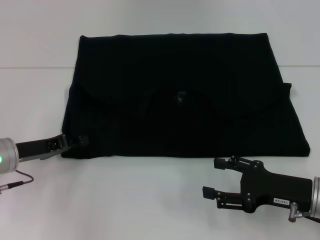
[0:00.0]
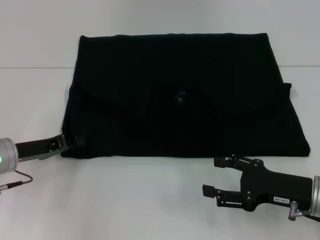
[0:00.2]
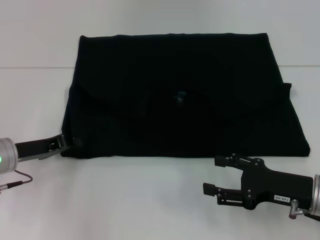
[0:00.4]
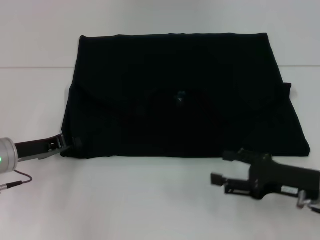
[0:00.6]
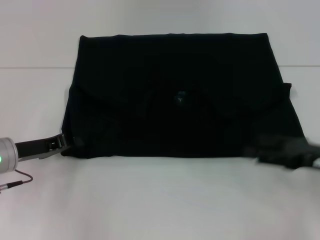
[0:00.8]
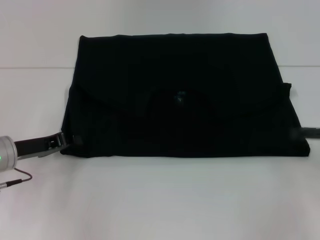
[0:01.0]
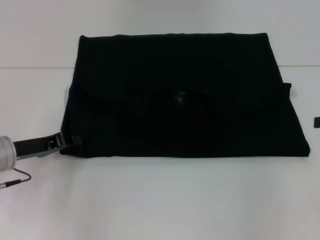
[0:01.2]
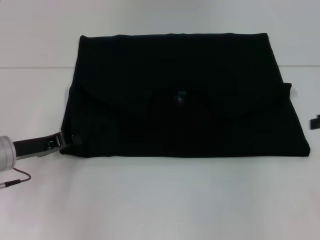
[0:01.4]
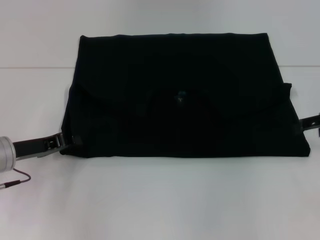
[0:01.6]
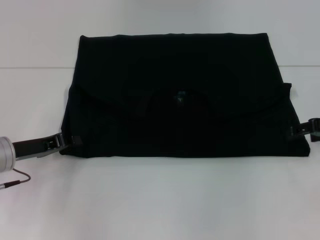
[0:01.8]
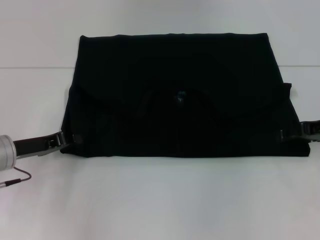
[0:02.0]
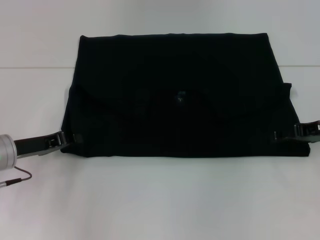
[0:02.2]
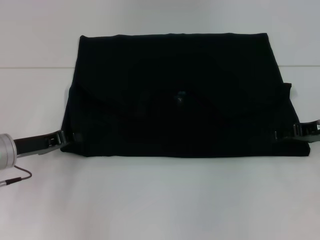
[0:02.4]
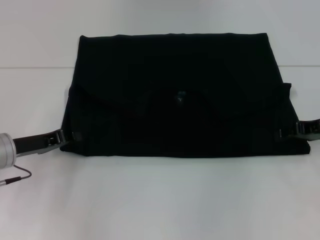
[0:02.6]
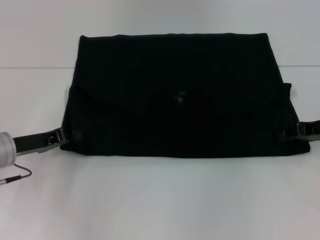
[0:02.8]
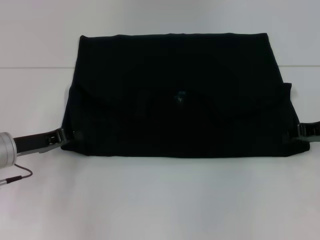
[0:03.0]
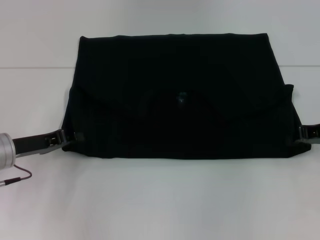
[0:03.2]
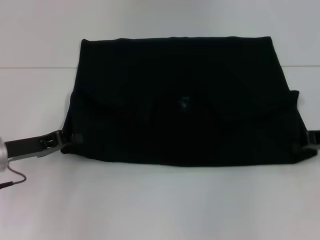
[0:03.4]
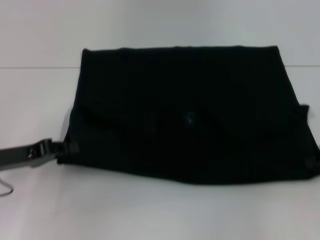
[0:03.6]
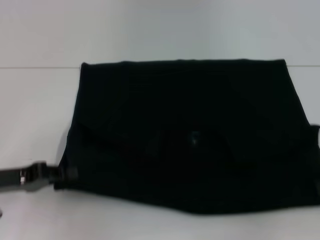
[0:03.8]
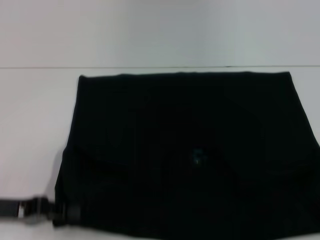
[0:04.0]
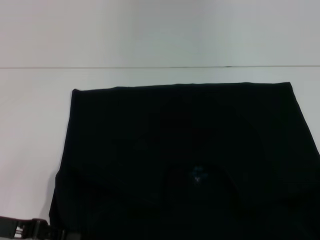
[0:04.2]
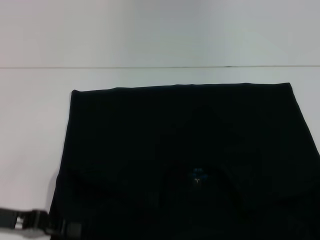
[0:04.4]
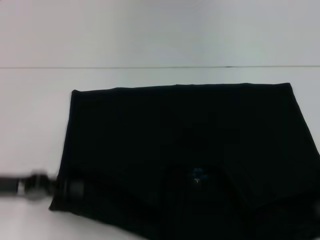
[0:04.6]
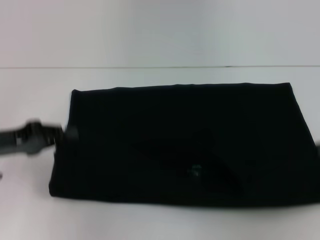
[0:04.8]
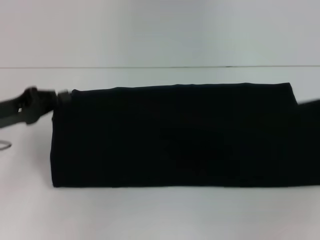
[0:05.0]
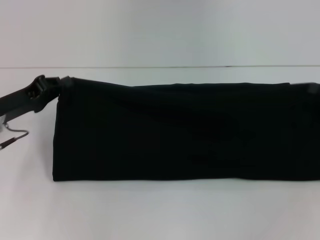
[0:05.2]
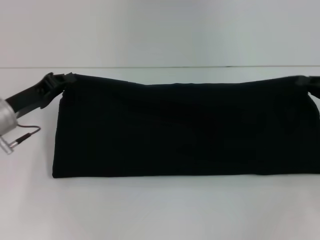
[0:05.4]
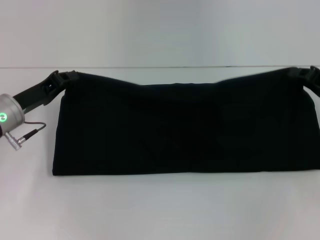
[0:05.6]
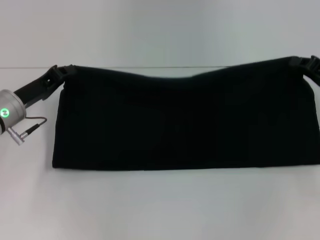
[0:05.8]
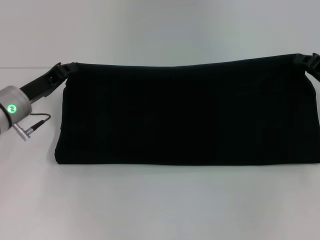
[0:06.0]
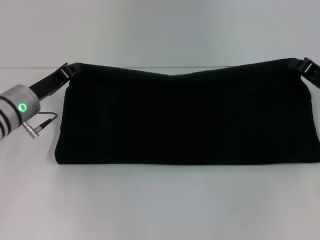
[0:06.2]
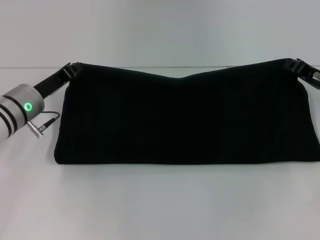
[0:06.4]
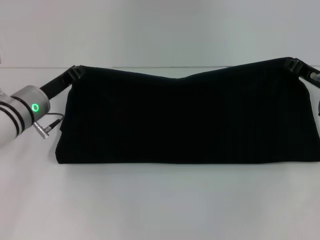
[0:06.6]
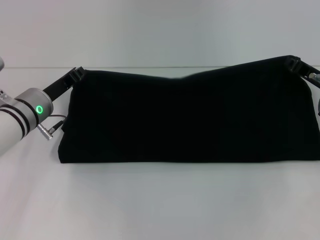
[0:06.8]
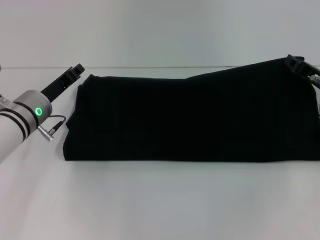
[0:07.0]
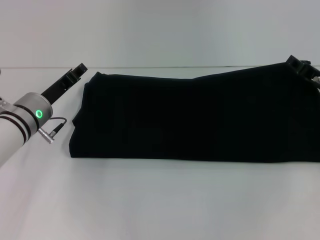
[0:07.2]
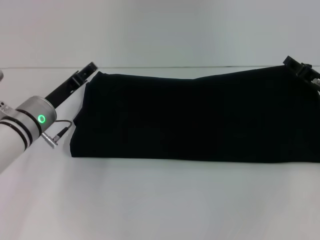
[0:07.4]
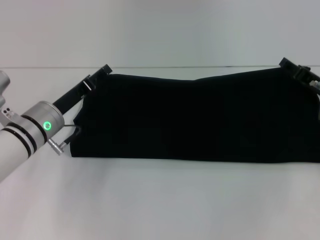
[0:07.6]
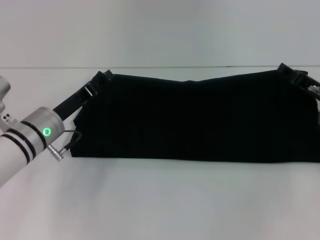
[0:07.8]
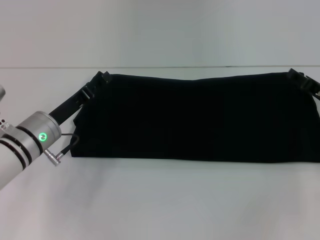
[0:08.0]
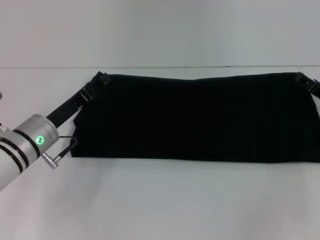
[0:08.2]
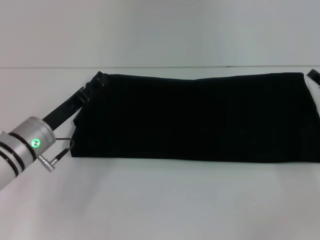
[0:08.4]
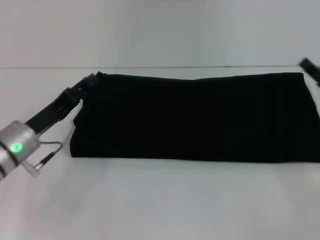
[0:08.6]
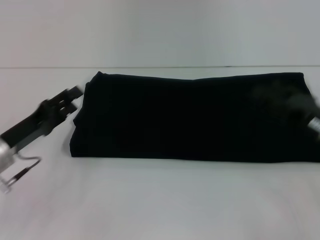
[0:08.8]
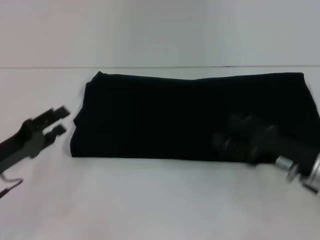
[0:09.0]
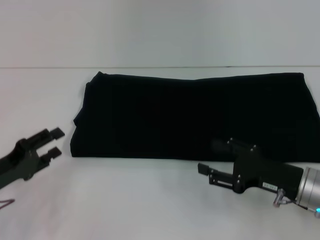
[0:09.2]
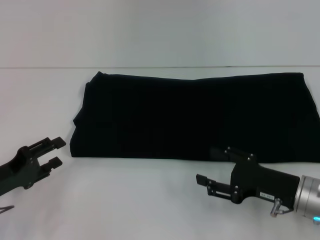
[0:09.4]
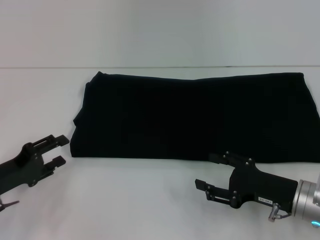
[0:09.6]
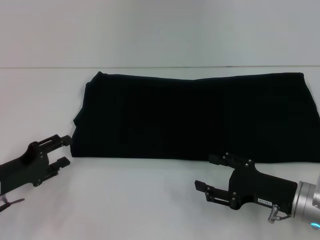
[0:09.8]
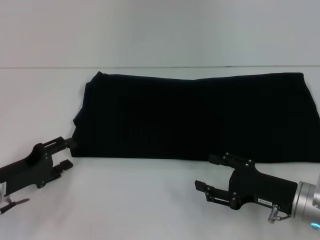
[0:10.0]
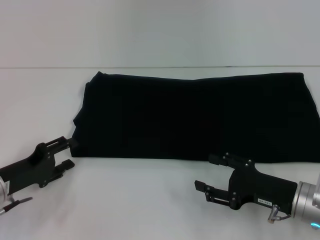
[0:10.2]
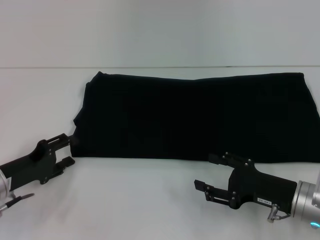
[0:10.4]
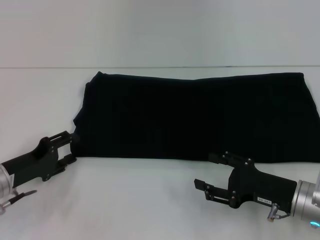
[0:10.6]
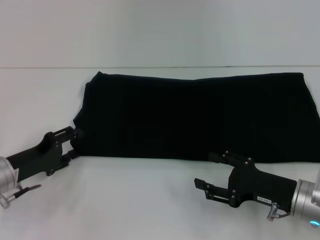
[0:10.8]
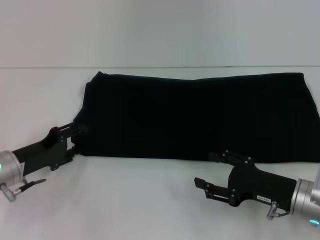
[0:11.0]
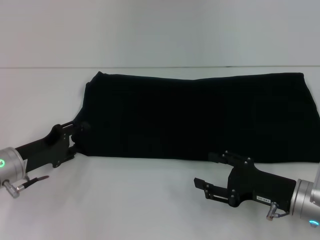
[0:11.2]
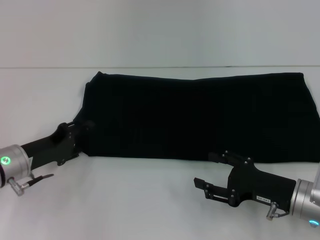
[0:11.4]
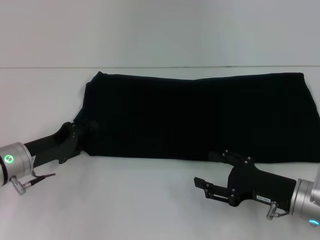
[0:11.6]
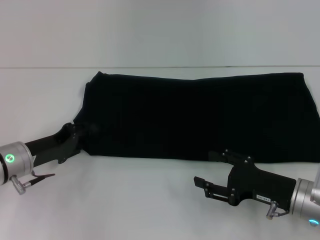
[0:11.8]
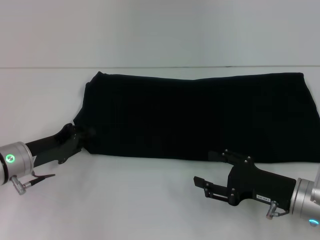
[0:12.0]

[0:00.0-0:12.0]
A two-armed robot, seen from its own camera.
Step, 0:00.0 to 0:04.0: Pull the clothes with your left hand.
Step, 0:00.0 to 0:04.0: Pull the clothes with your right hand.
Step, 0:04.2 to 0:08.2: Fold the clothes with your right hand.
0:00.0 to 0:01.6: The right gripper is displaced forward, upward and to the right by roughly 20 cm. Meanwhile the left gripper closes up.
0:01.6 to 0:03.0: The right gripper closes.
0:03.0 to 0:04.4: Both grippers move backward, approximately 10 cm. The right gripper closes up.
0:04.4 to 0:06.0: Both grippers move forward, about 15 cm.
0:06.0 to 0:07.6: The left gripper shifts by about 5 cm, and opens its fingers; the right gripper opens.
0:07.6 to 0:09.0: The right gripper travels backward by about 10 cm, while the left gripper heads backward and to the left, covering roughly 15 cm.
0:09.0 to 0:10.4: The right gripper moves some 5 cm.
0:10.4 to 0:12.0: The left gripper changes place by some 5 cm, and closes up.

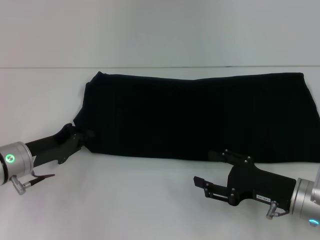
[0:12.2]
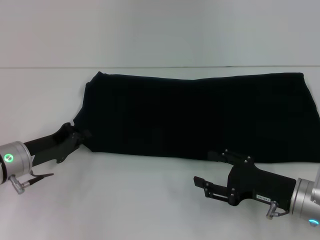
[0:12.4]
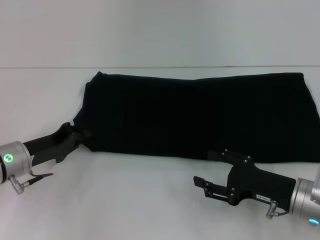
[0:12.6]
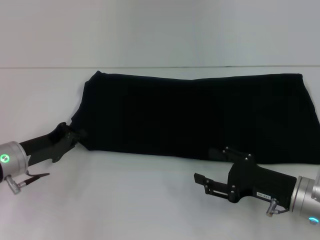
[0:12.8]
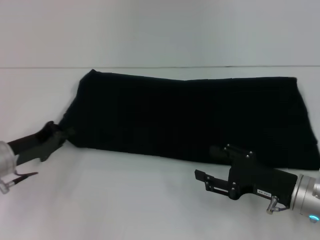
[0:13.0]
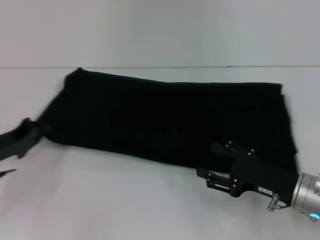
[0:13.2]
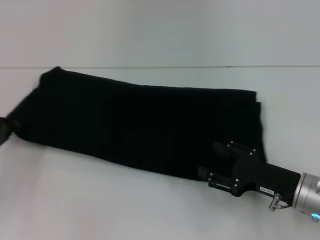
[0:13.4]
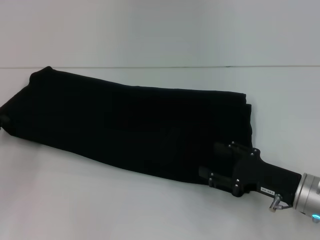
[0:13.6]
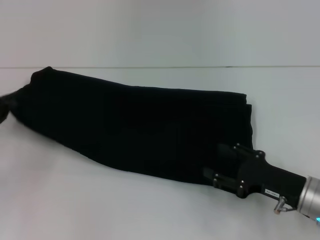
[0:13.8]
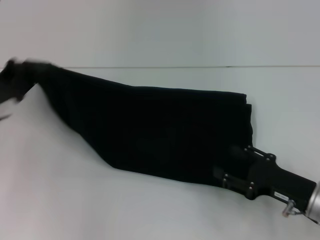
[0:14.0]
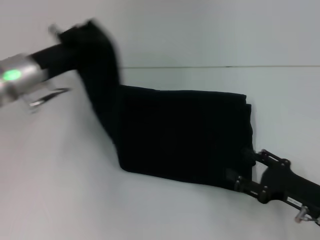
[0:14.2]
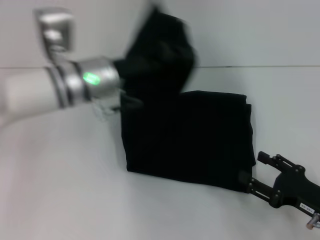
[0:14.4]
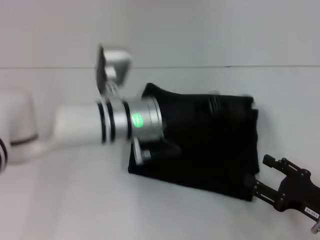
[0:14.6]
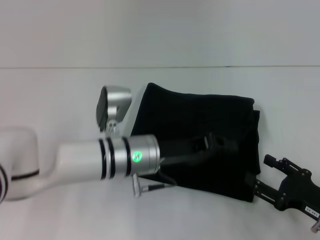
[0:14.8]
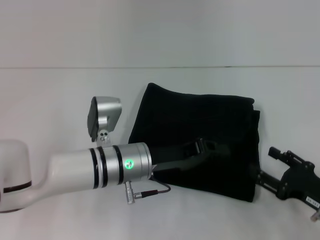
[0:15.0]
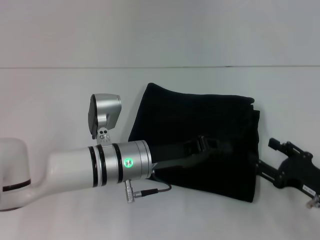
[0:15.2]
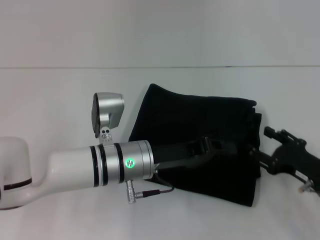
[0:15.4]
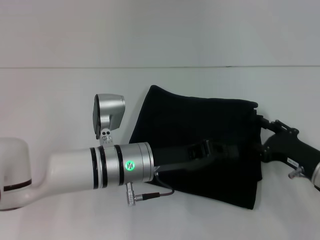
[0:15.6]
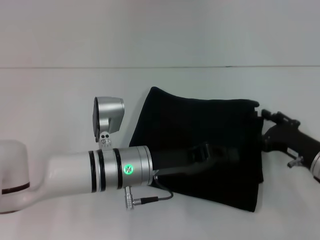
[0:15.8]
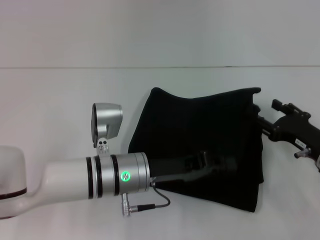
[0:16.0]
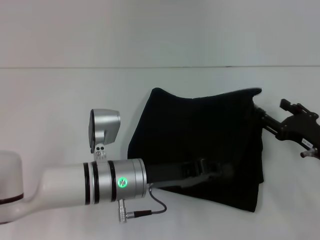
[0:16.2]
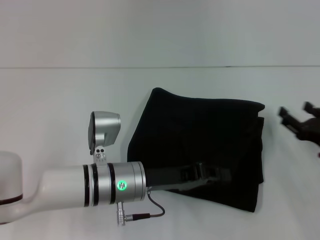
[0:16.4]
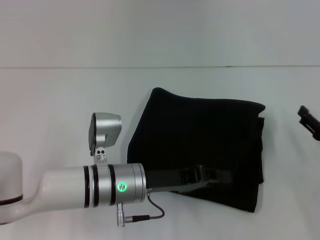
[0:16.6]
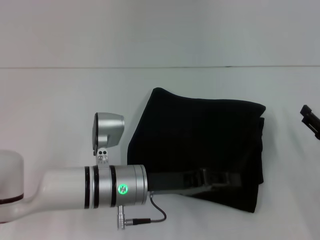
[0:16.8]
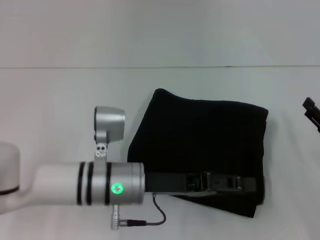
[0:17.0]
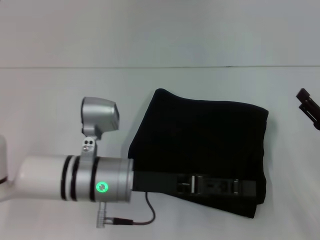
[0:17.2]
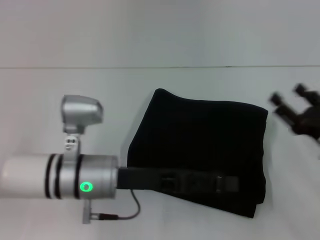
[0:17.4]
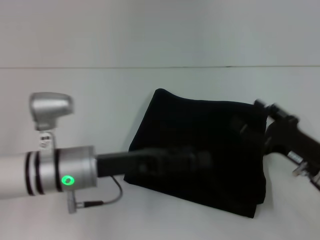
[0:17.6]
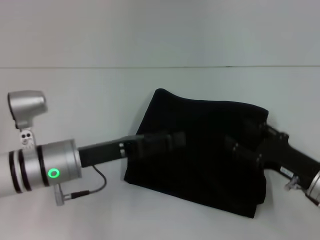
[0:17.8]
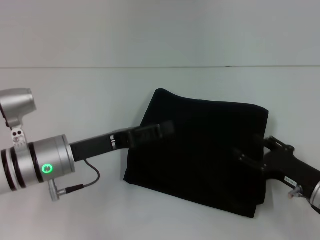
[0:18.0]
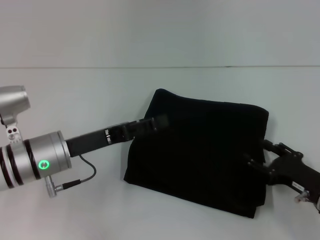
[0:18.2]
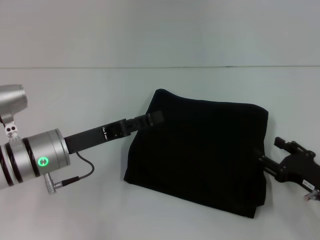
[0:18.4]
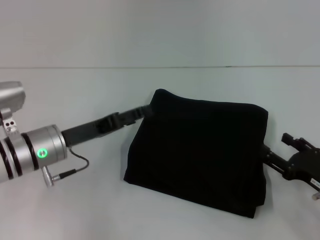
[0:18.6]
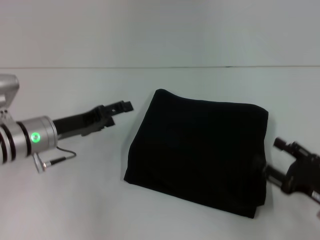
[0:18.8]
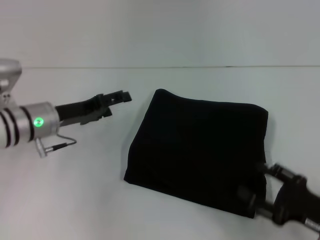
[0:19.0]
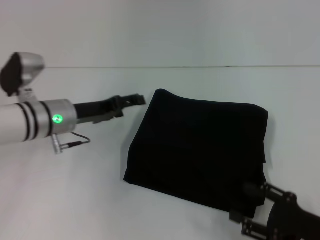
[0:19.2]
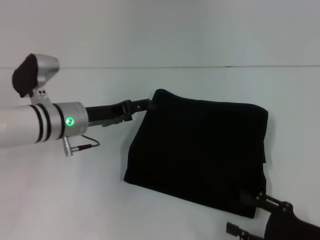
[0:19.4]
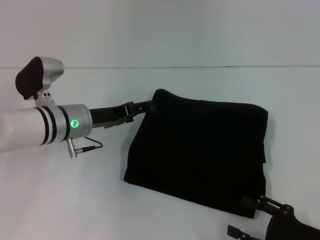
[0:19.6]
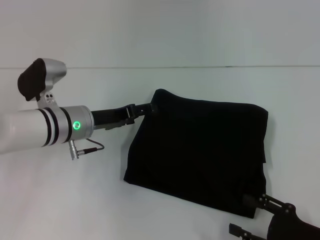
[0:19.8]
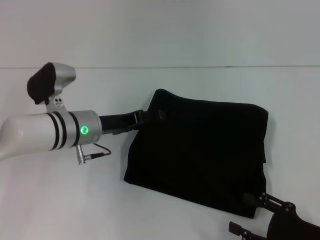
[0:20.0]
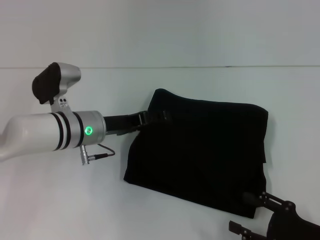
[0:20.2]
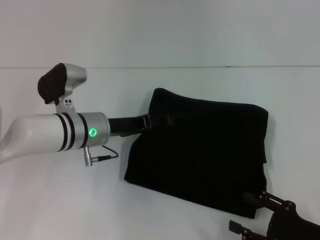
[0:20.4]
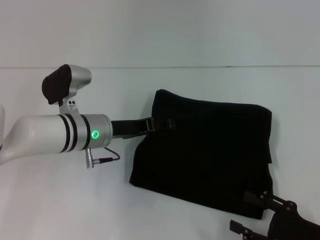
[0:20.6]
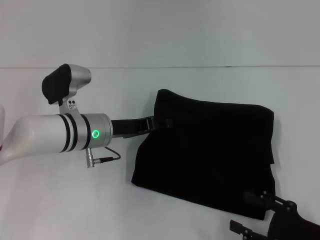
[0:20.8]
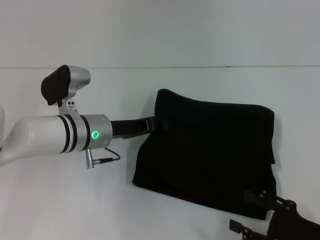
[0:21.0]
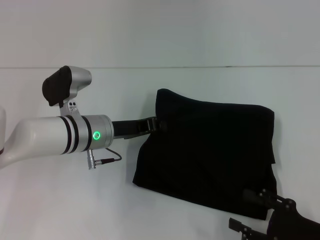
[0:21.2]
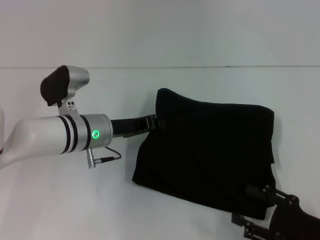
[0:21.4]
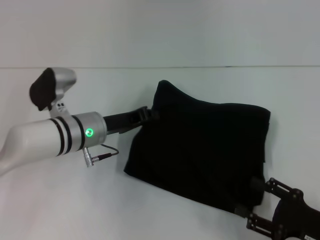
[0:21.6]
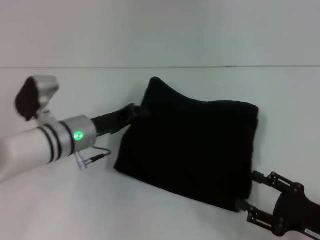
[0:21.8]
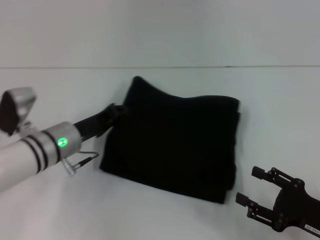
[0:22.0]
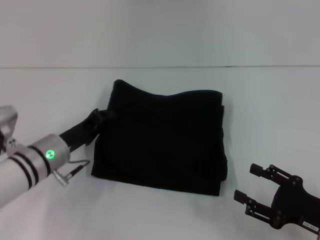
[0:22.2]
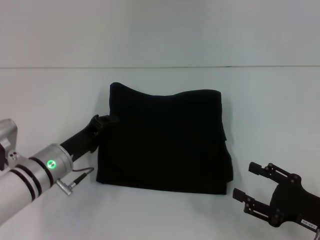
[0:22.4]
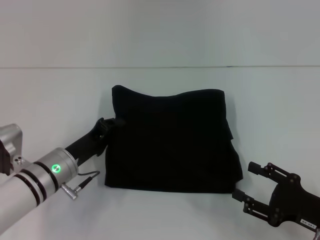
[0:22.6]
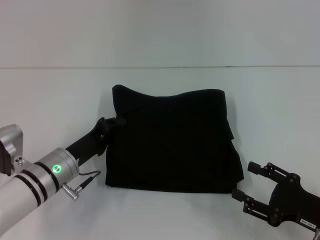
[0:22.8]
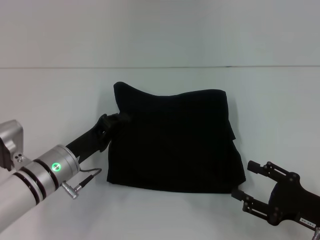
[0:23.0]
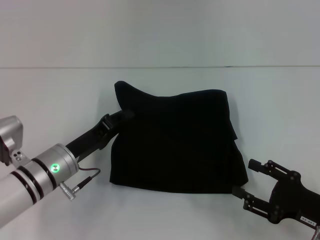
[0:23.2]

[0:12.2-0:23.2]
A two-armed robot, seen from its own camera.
Step, 0:12.2 to 0:17.0: Fold the clothes with your left hand.
0:12.2 to 0:13.8: The left gripper heads to the left, covering approximately 10 cm.
0:13.8 to 0:15.4: The left gripper heads to the right, covering approximately 30 cm.
0:17.0 to 0:18.4: The right gripper ends up some 5 cm from where it was. Meanwhile the left gripper shifts roughly 10 cm to the left, and opens.
0:18.4 to 0:20.0: The right gripper moves backward, some 5 cm, while the left gripper travels forward by roughly 5 cm.
0:20.0 to 0:21.6: The left gripper closes its fingers.
0:21.6 to 0:23.2: The left gripper travels backward by roughly 5 cm.
